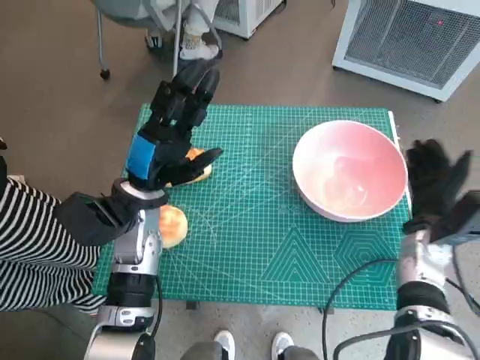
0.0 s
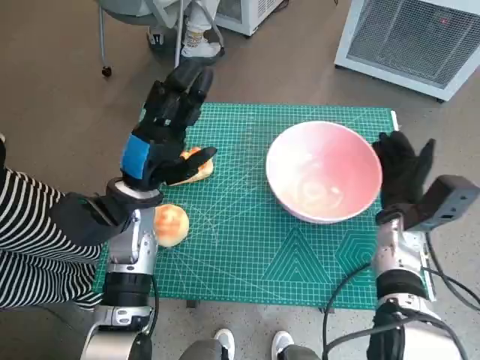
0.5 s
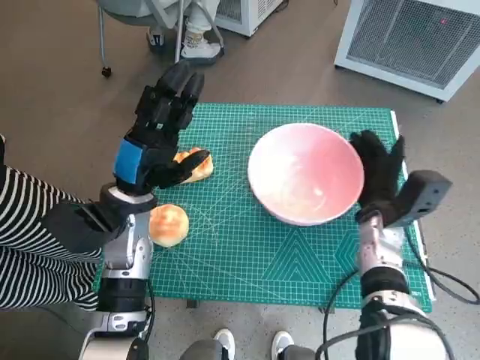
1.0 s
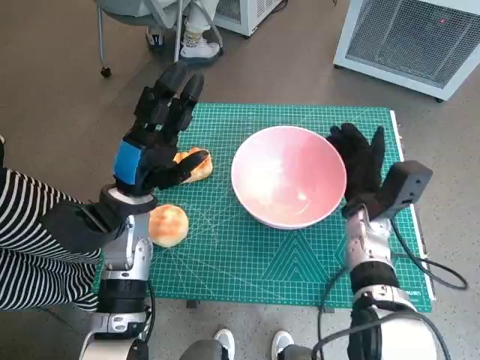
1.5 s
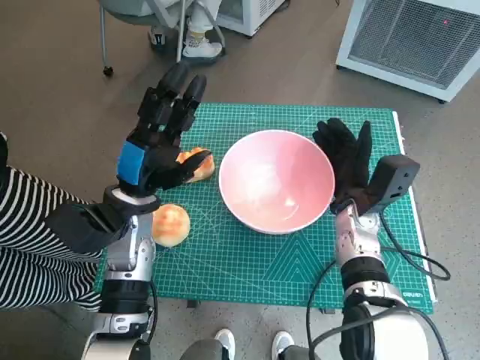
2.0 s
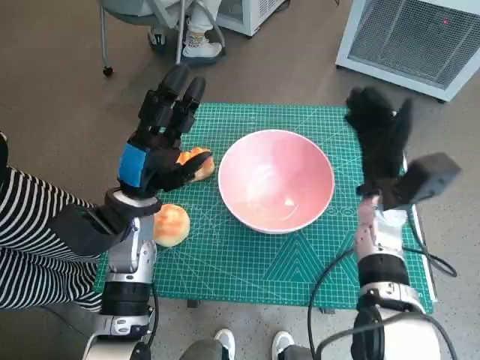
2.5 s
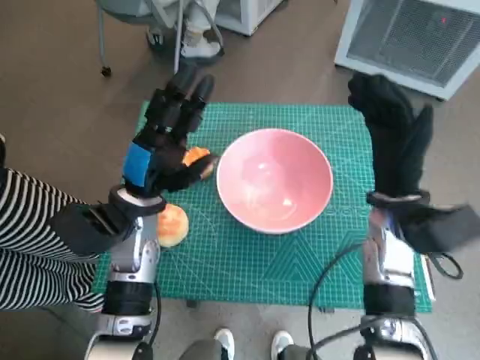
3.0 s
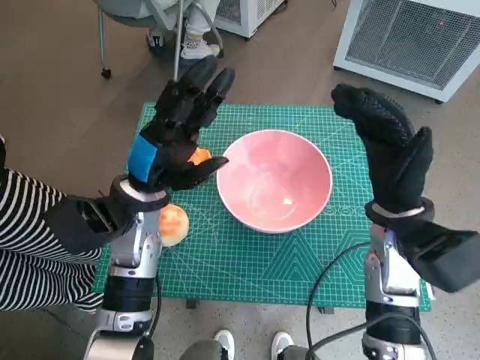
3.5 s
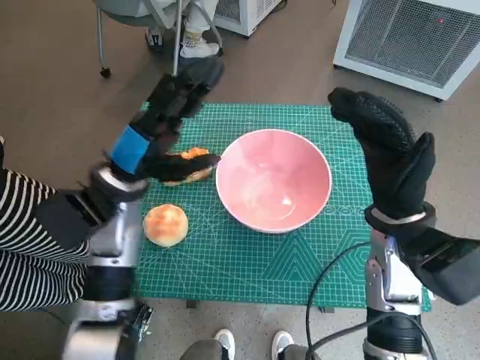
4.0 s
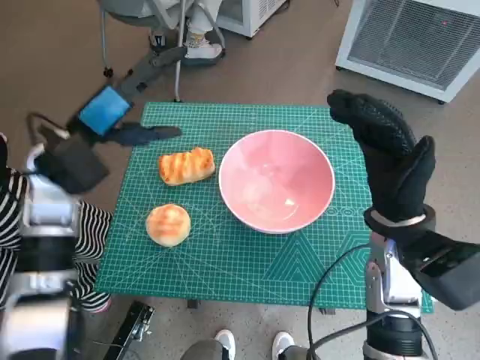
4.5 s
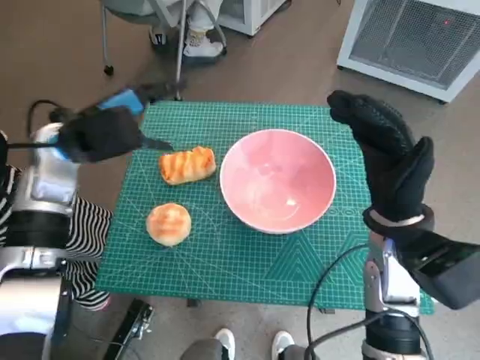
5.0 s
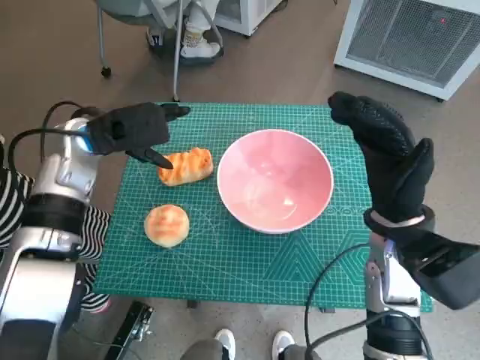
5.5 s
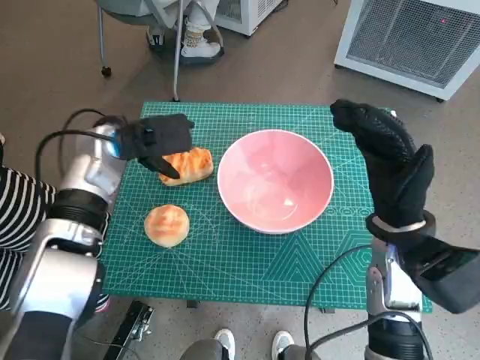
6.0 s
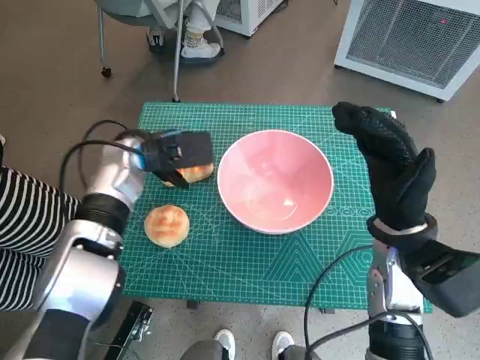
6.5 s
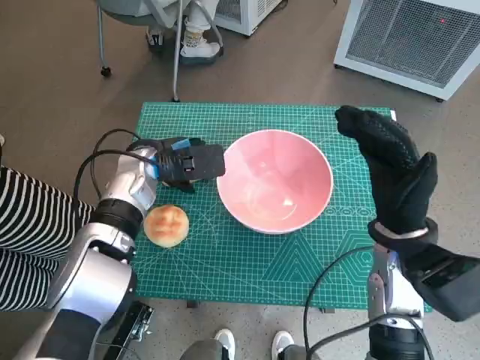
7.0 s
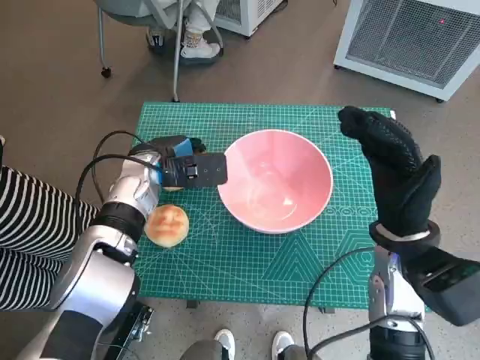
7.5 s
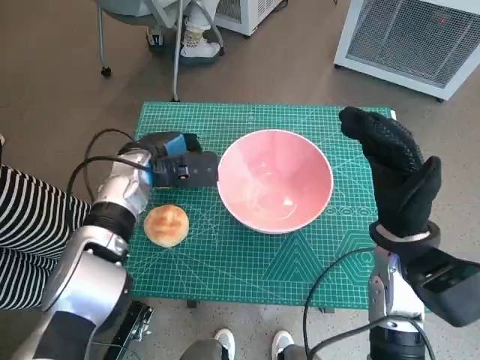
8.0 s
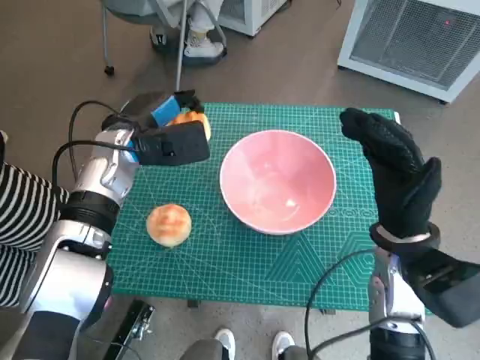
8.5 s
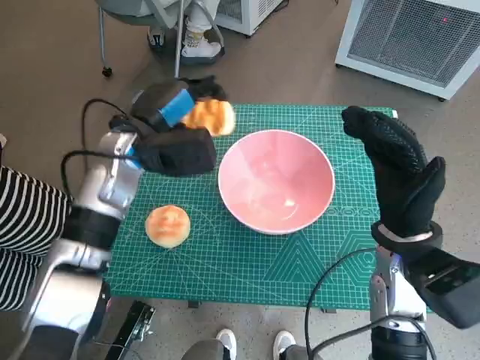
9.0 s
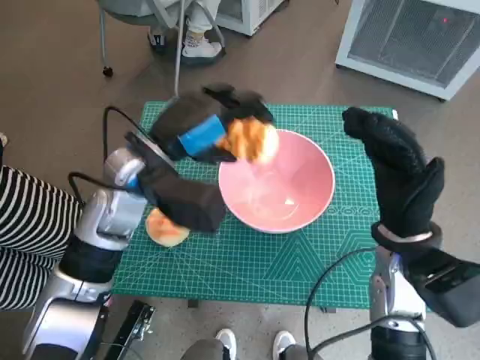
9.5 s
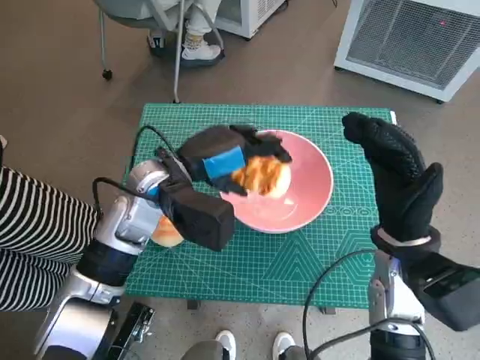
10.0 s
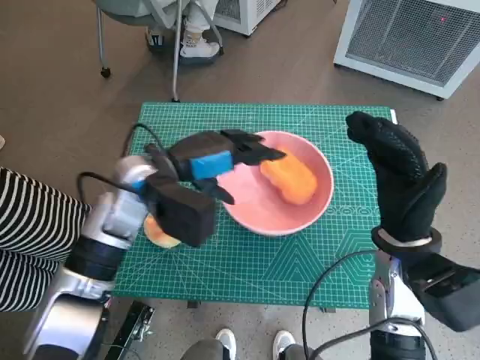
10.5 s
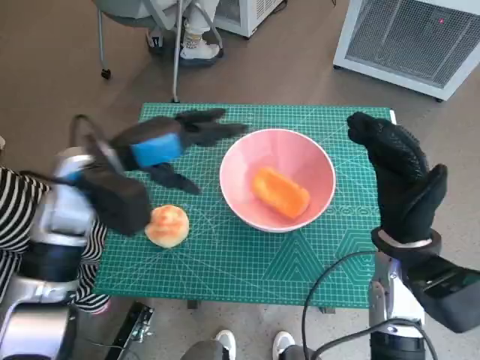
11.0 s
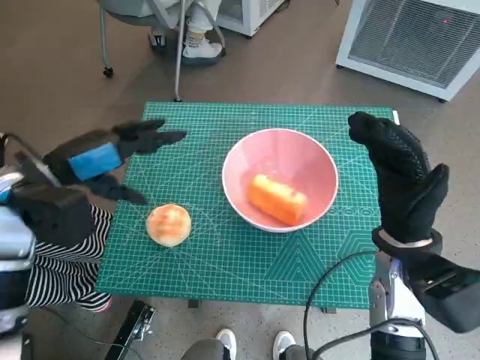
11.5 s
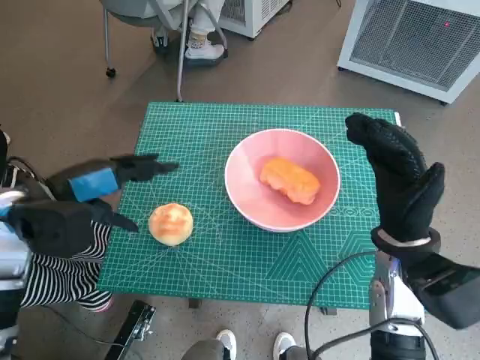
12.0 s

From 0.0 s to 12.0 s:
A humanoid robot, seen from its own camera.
Task of the whole recording: Push the bowl into the center of the table and put the bread into the bowl.
Step, from 0.0 s to 2.0 s: Move the pink bowl to the center of table with right hand.
Step, from 2.5 s to 7.5 s: Grasp the long bread with left hand.
Step, from 8.0 s to 10.5 s: Place the long bread in pink bowl with left hand.
From 0.0 s to 2.0 s: The right hand is displaced to the left by approximately 10 cm.
From 2.0 s to 4.0 s: The right hand shifts about 10 cm upward and backward.
From 4.0 s to 6.0 s: The left hand travels forward by approximately 5 cm.
From 6.0 s to 8.0 s: The left hand heads downward, covering approximately 5 cm.
From 8.0 s to 10.0 s: The left hand travels upward, to the right and backward by approximately 10 cm.
From 10.0 s to 12.0 s: The left hand moves to the left, about 15 cm.

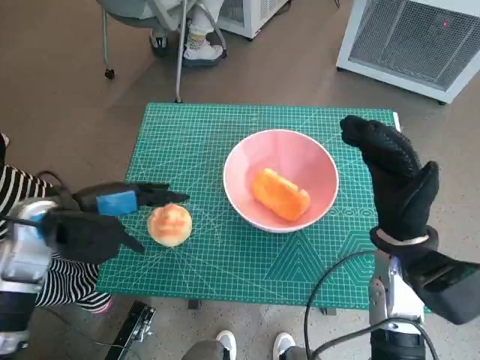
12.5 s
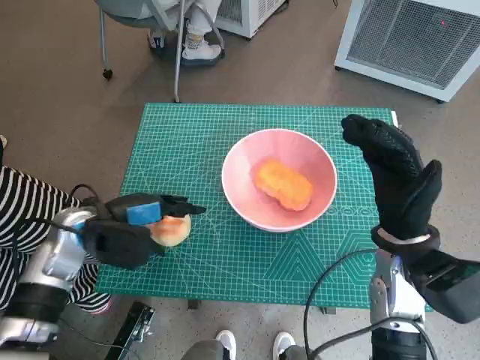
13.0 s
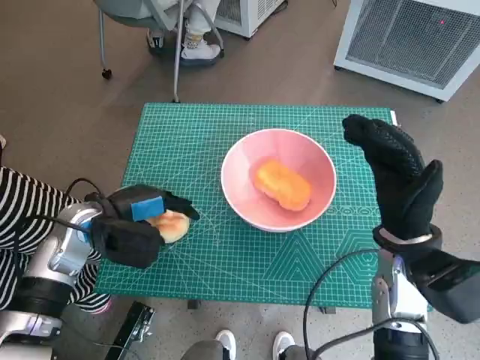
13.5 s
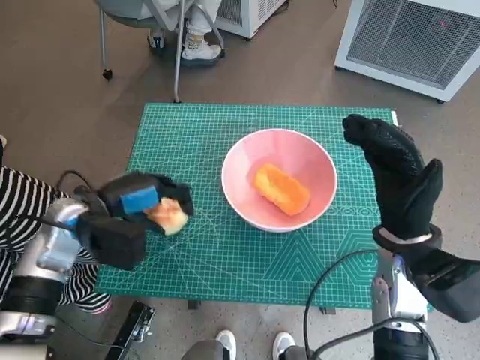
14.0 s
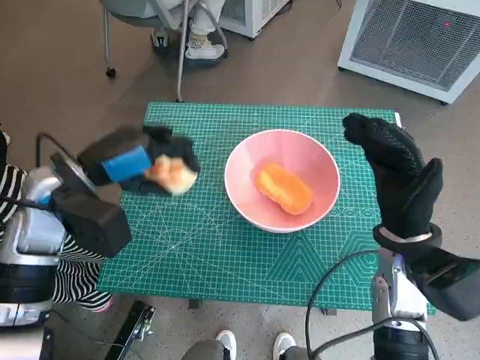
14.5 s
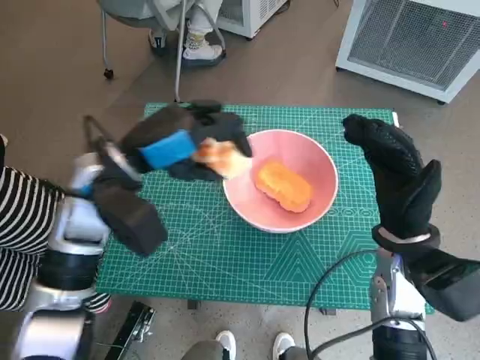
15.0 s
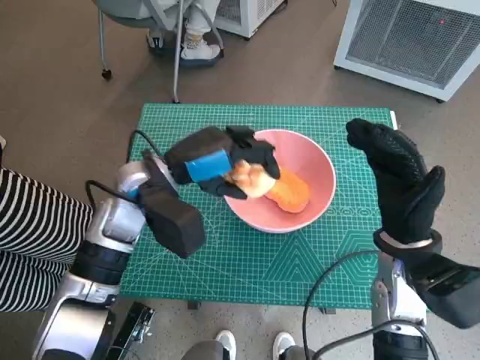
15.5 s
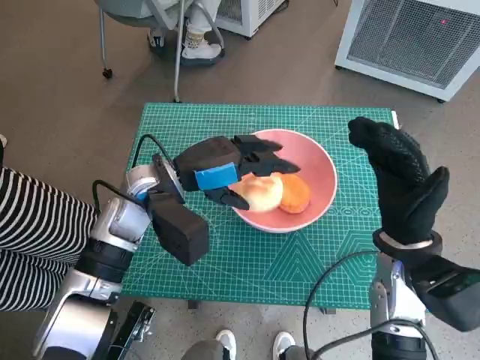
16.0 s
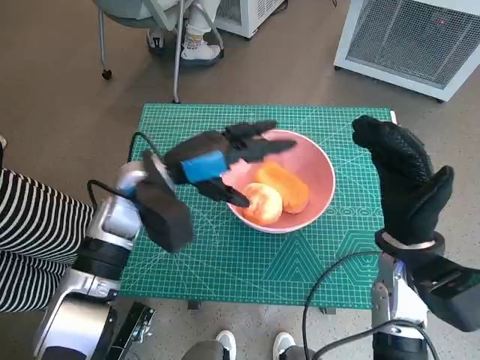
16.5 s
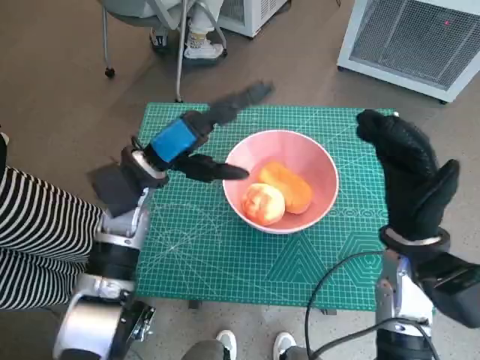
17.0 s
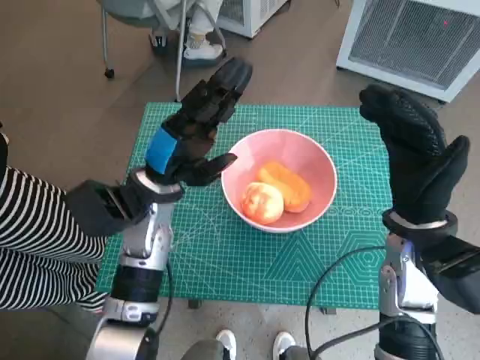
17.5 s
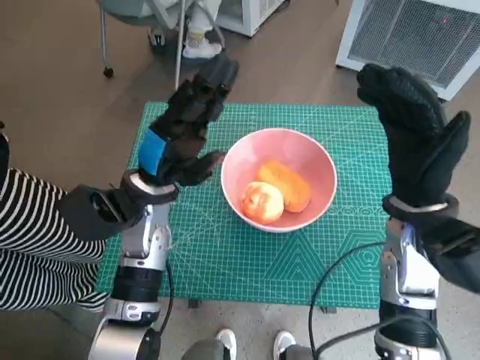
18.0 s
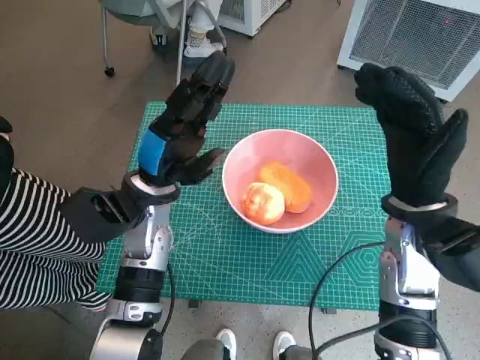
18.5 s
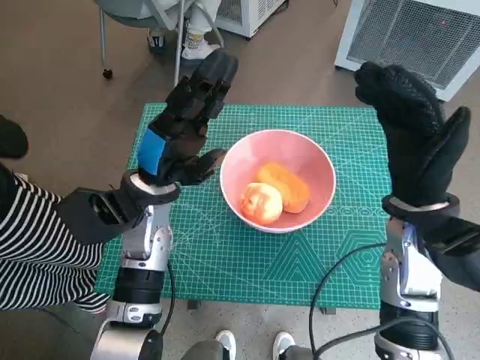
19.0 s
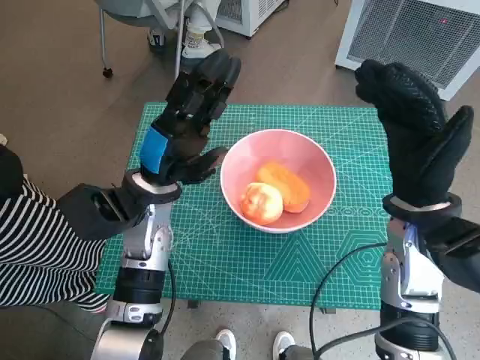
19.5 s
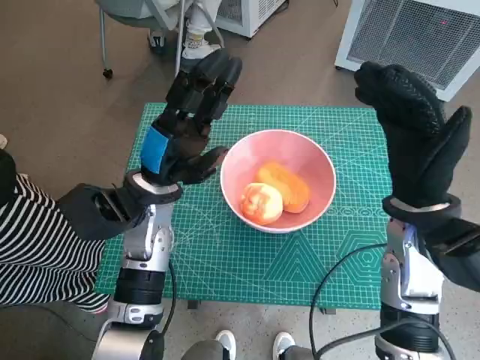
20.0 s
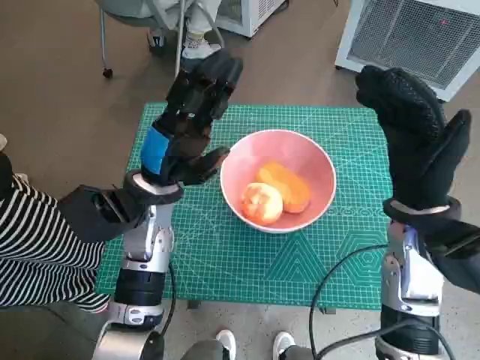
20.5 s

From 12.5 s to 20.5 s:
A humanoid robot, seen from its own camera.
Task of the whole recording: Push the bowl into the center of the table and put the bread into the bowl.
Step, from 14.0 s to 16.5 s: Place the round bread in pink bowl with left hand.
From 14.5 s to 16.5 s: The left hand heads to the right, covering roughly 10 cm.
From 16.5 s to 18.5 s: The right hand moves roughly 5 cm.
From 18.5 s to 20.5 s: The two hands keep their place.
